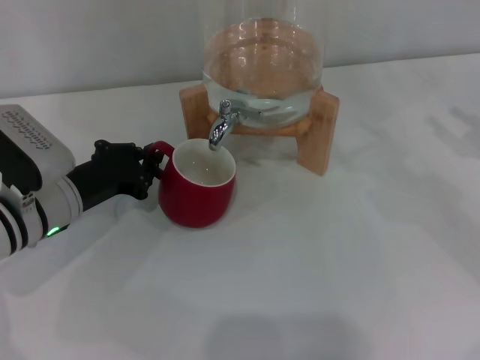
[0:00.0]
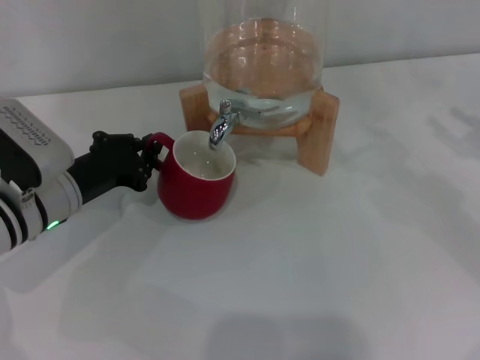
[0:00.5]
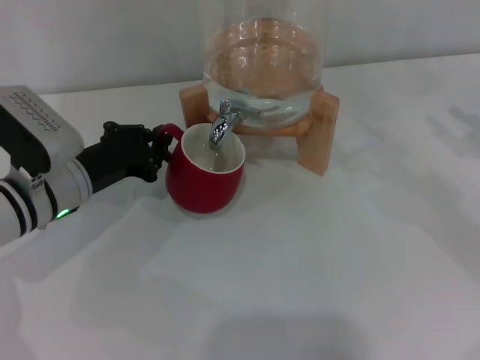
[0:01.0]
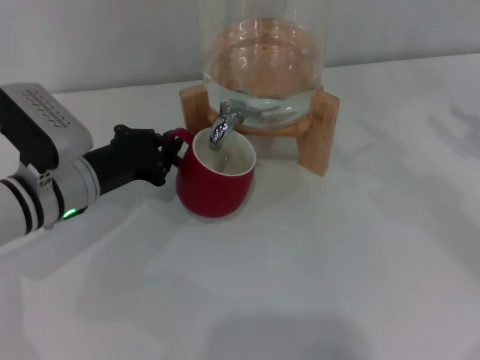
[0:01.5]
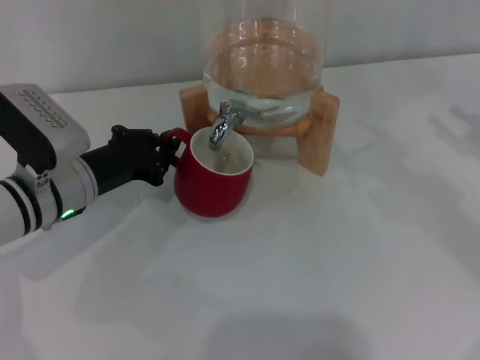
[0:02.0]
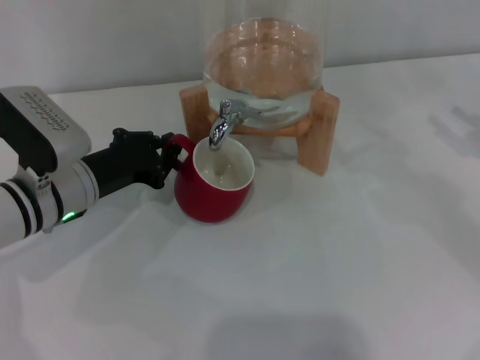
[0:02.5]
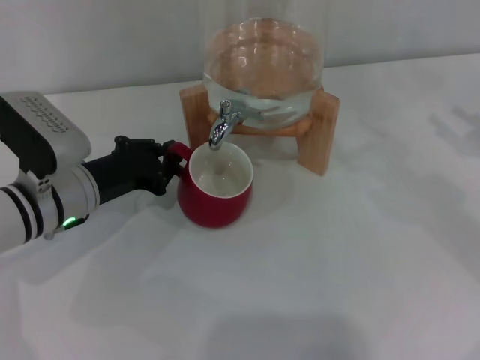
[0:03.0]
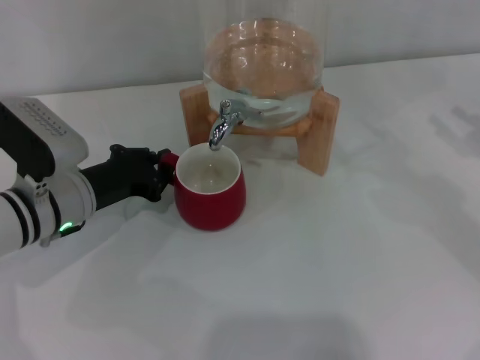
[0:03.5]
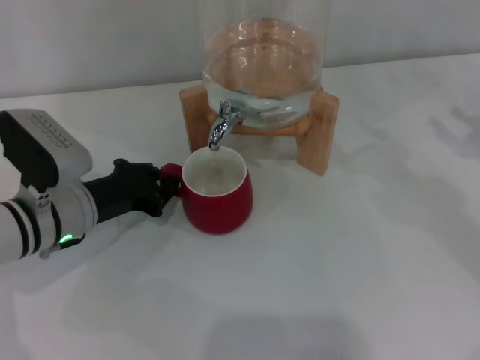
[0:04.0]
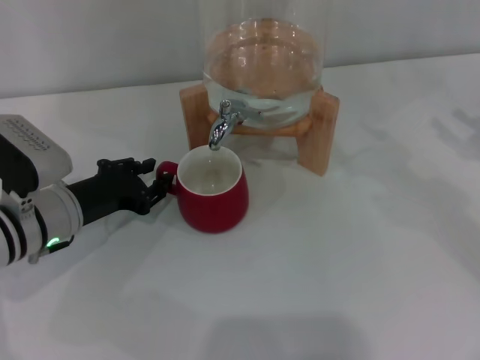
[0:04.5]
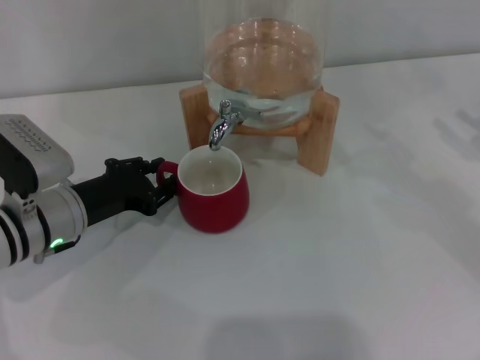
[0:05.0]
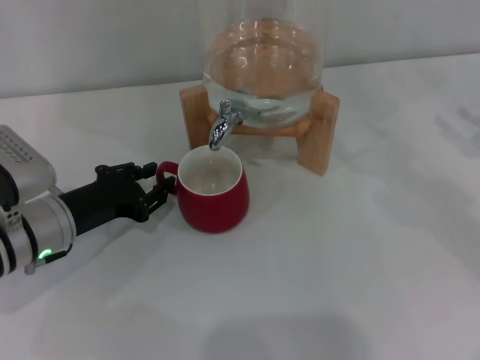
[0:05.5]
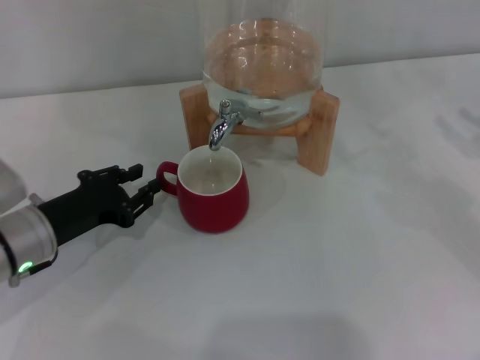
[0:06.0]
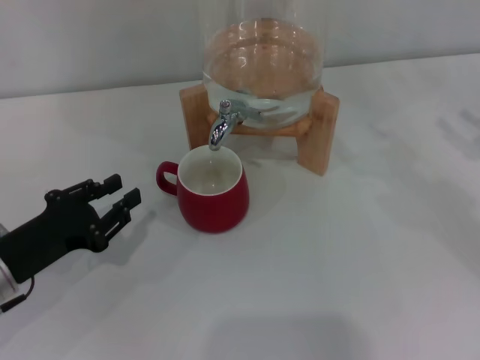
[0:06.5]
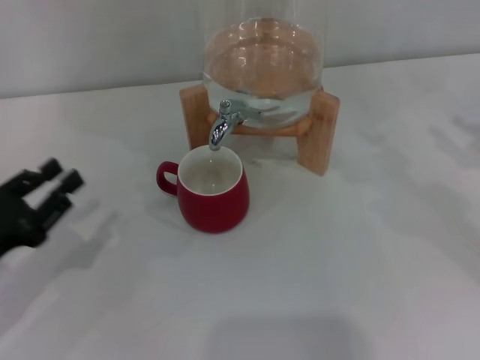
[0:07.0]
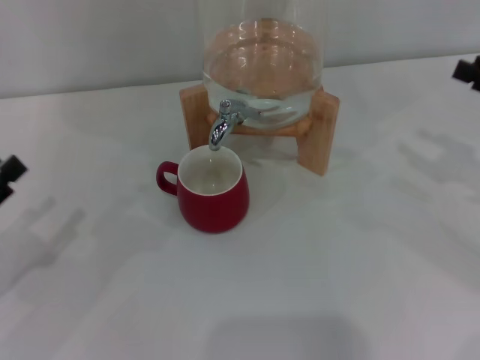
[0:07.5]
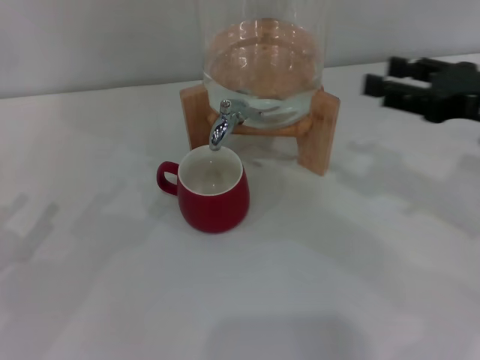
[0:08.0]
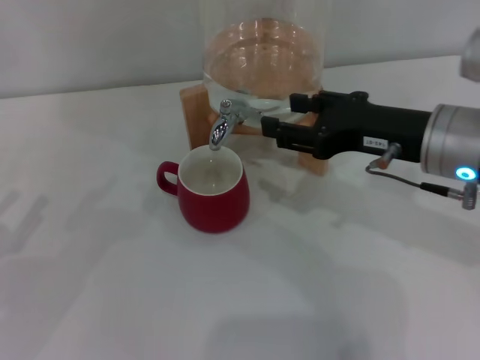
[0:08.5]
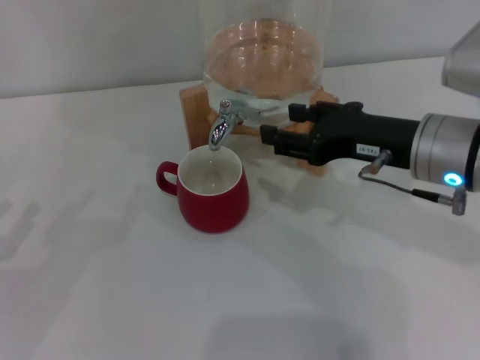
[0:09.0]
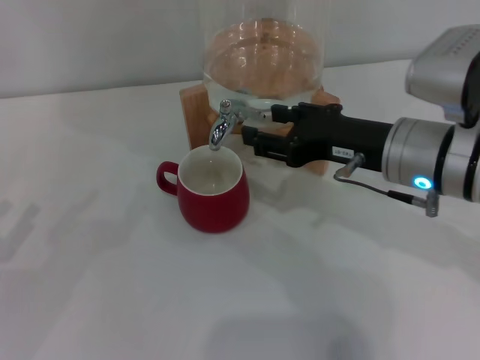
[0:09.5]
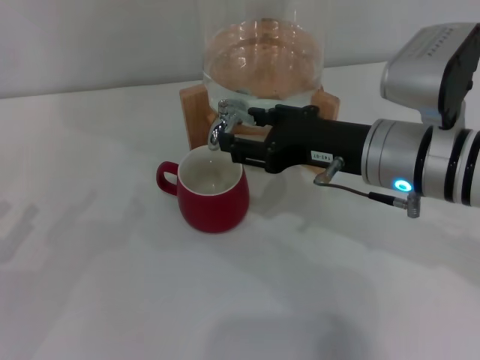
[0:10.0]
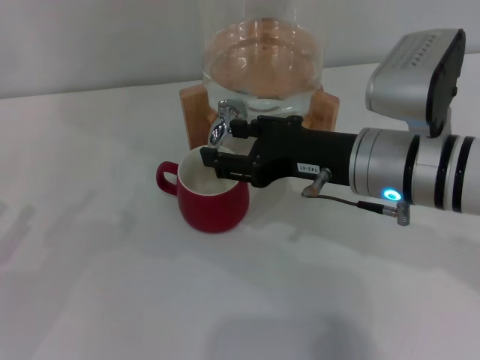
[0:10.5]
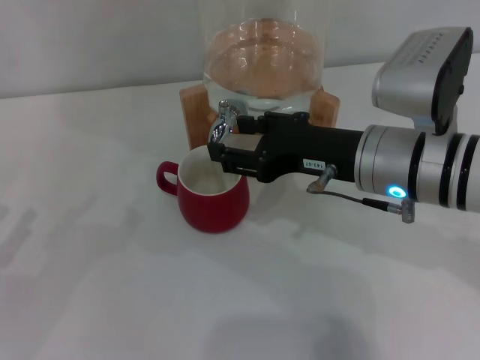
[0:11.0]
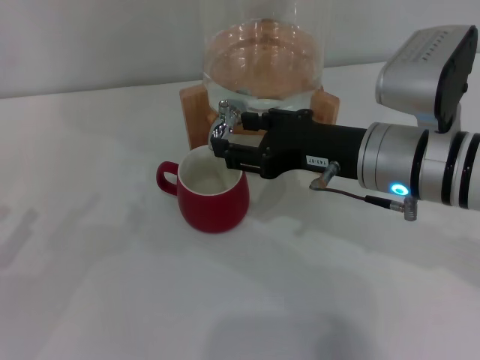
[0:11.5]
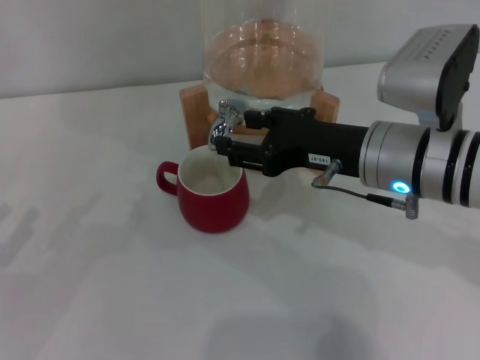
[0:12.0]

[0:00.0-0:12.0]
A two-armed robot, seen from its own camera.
Task of the whole recording: the left gripper pick up the red cup and place it horizontally under the faucet, the right gripper turn on the faucet to fill the cup, and then turn off the faucet.
Step, 0:00.0 to 0:06.0: Move the cup beneath the water dispenser nozzle with the left gripper.
Step, 0:06.5 to 0:11.0: Open the dispenser valve and fill the cup with water with the right gripper.
0:00.0 to 0:06.0: The grippers stay close to where they were, moving slightly.
0:06.0 to 0:08.0: The left gripper heads to the left and backward, covering roughly 15 cm, and opens its fingers. Meanwhile the right gripper travels to the left by roughly 10 cm.
0:08.0 to 0:10.0: The right gripper travels to the left by roughly 15 cm.
0:10.0 to 0:12.0: Both grippers stay about where they are.

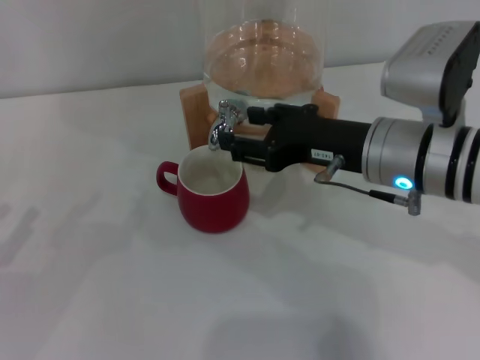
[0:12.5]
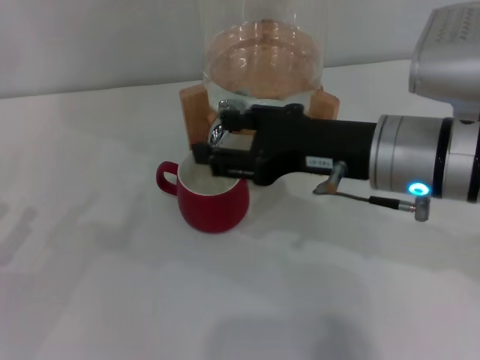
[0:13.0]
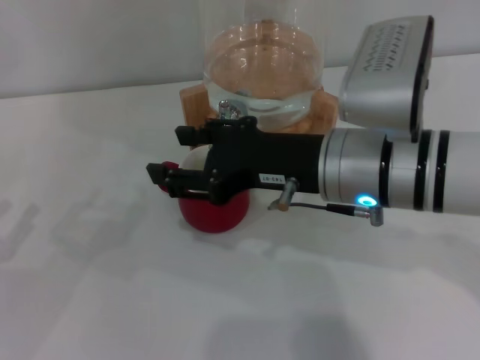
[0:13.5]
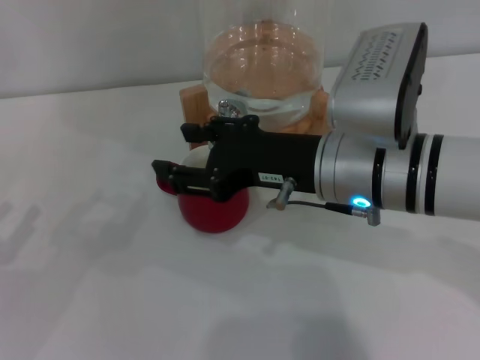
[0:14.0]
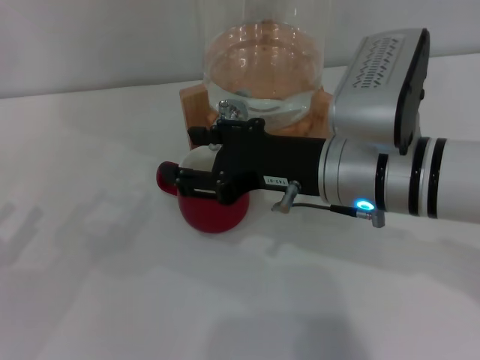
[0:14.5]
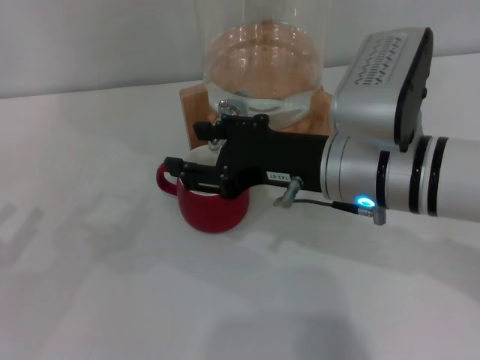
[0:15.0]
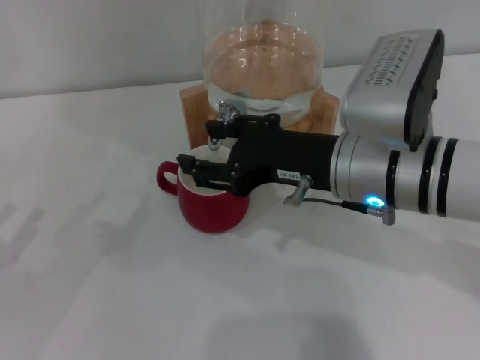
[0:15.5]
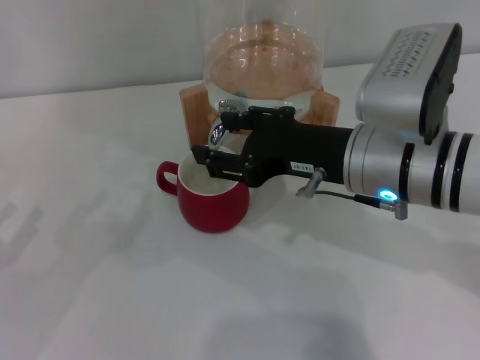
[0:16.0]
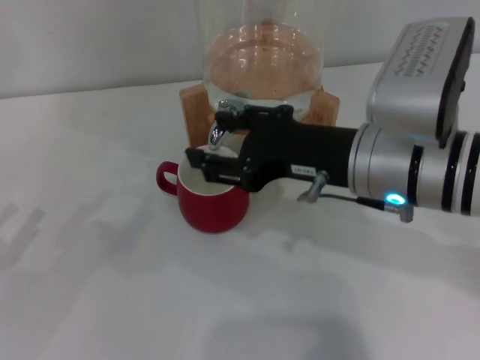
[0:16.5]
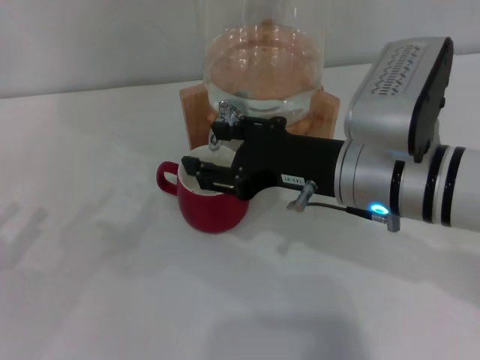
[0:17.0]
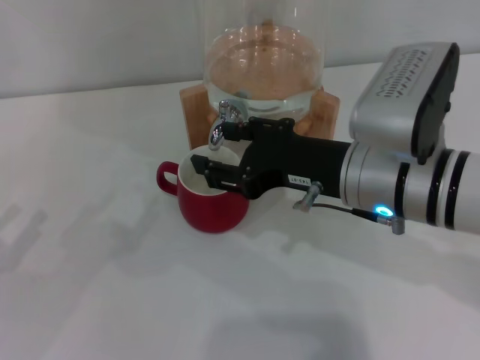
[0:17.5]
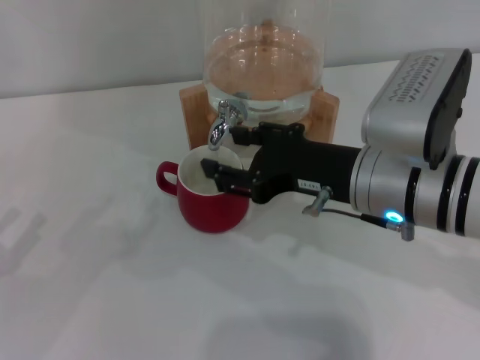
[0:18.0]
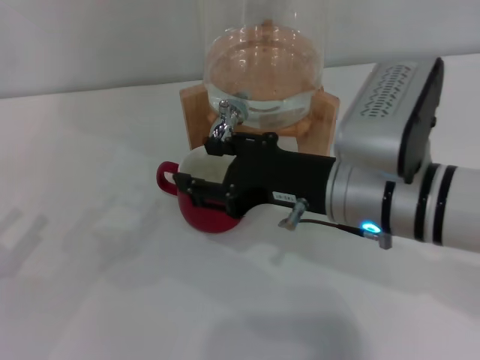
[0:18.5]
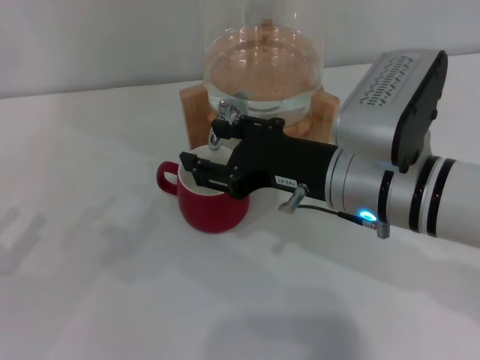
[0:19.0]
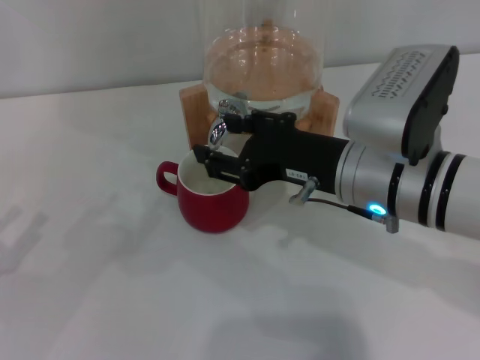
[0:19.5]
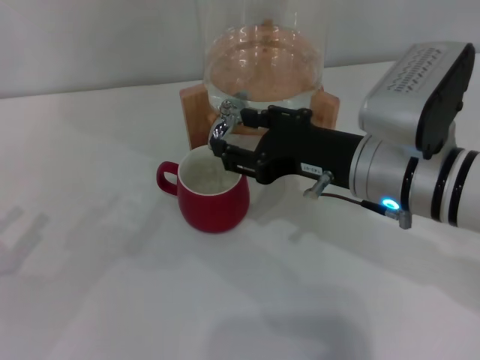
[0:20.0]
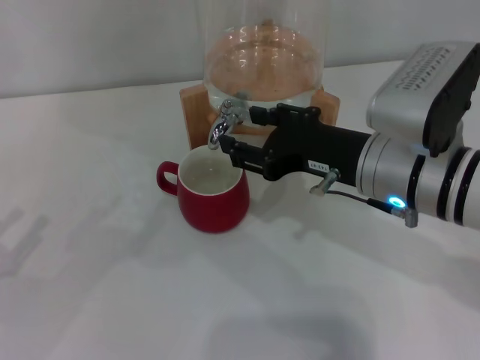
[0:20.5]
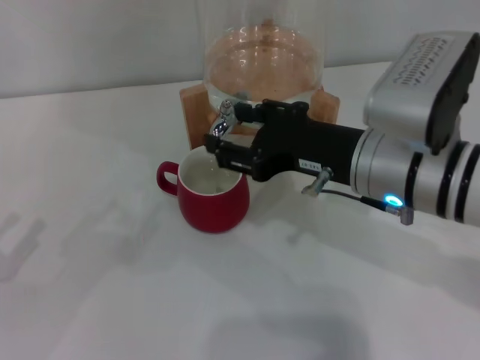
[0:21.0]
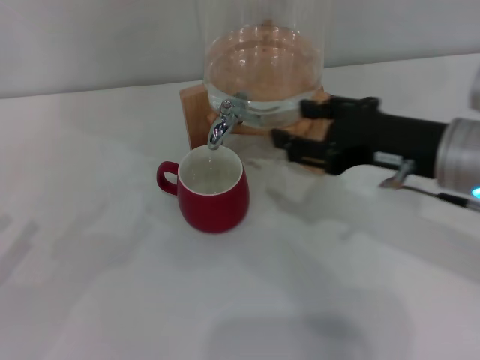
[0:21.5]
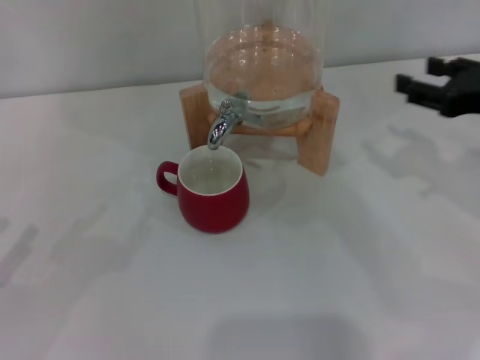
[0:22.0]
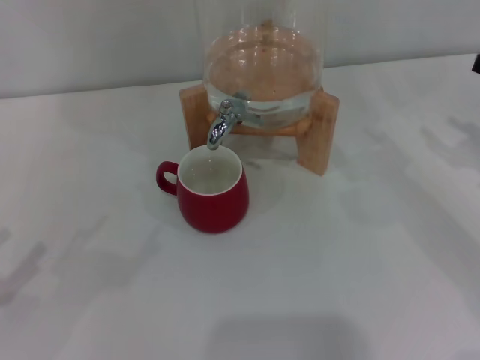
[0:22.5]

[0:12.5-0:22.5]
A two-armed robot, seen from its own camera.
Task of the whole recording: the left gripper pick up the red cup and place it horizontally under the faucet, the right gripper turn on the faucet to fill the cup, and then turn off the faucet.
Step, 0:12.5 to 0:21.5: Close the dispenser valve with the right gripper.
0:12.5 to 0:20.5: The grippers move only a little.
0:20.5 to 0:22.5: The right gripper heads to the right, covering approximately 25 cm.
